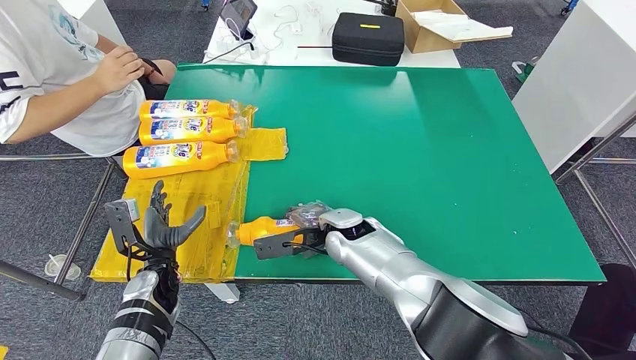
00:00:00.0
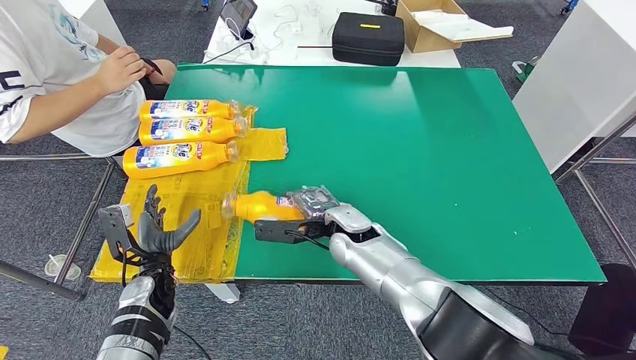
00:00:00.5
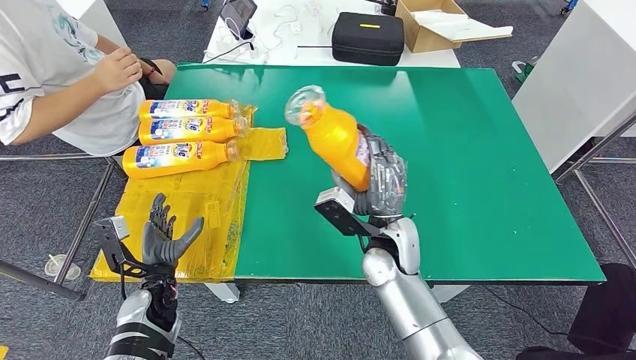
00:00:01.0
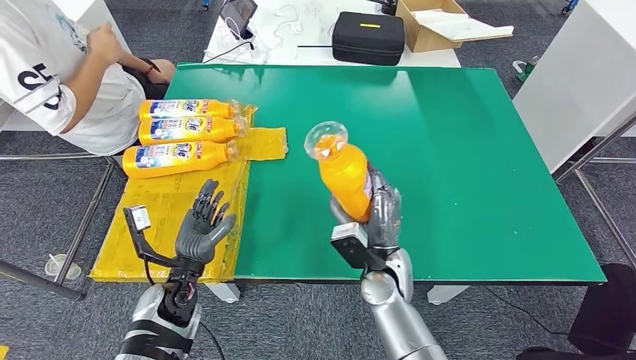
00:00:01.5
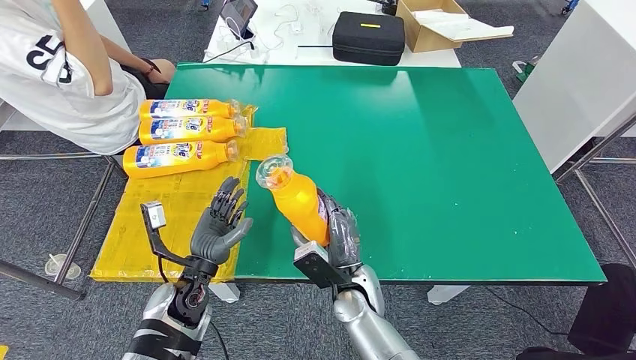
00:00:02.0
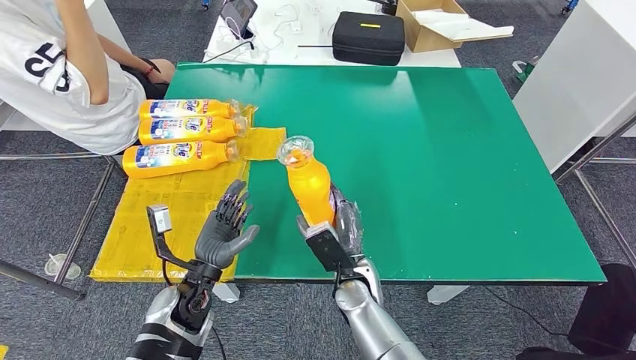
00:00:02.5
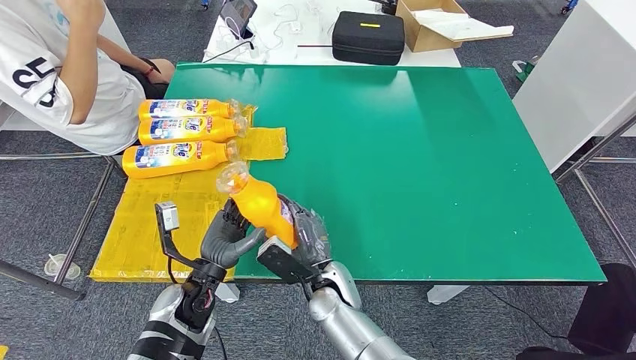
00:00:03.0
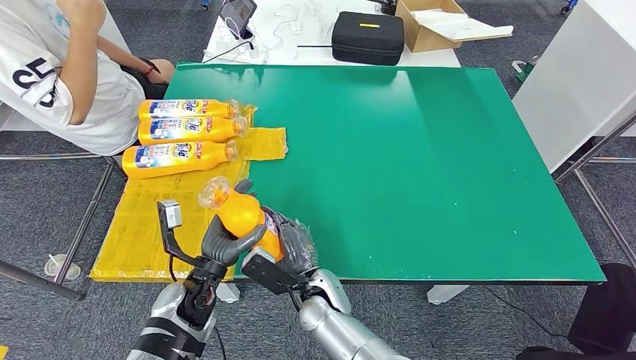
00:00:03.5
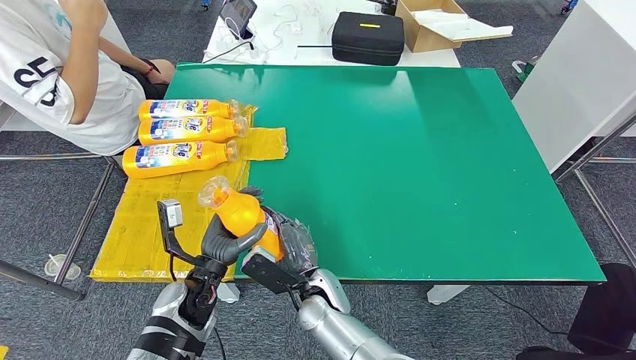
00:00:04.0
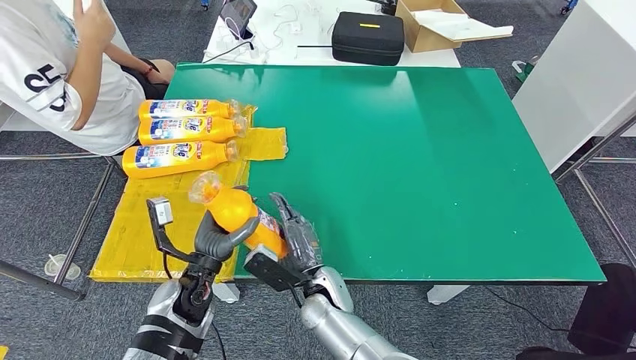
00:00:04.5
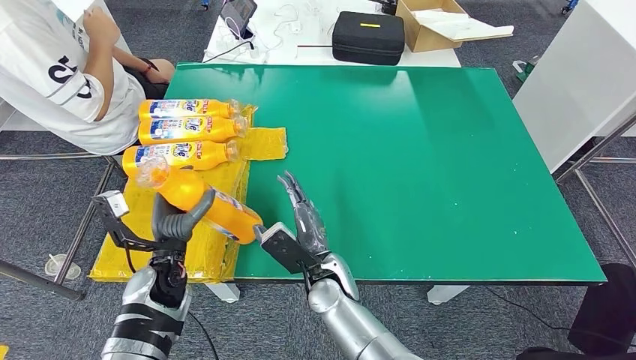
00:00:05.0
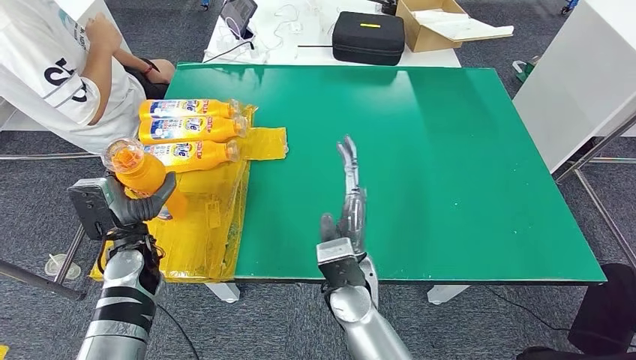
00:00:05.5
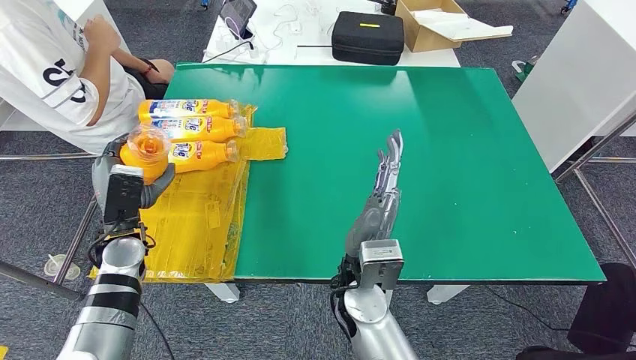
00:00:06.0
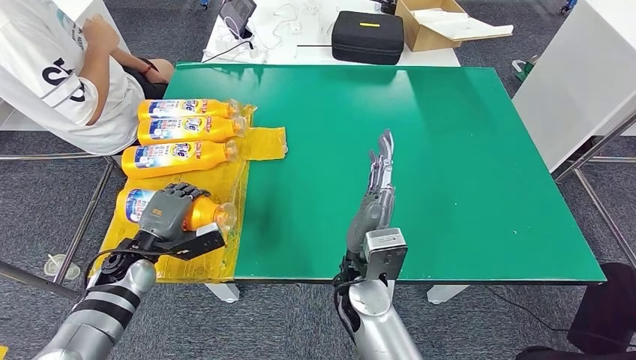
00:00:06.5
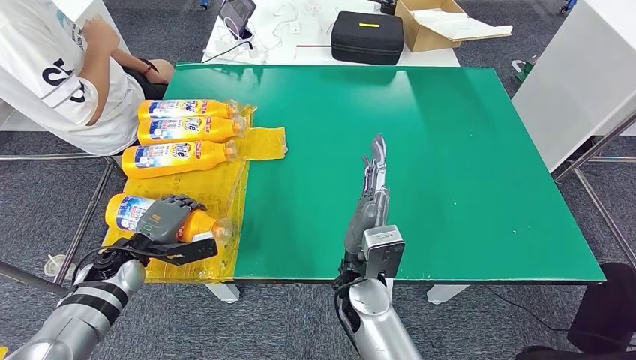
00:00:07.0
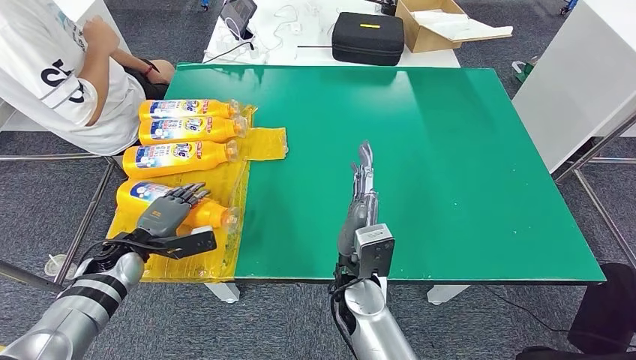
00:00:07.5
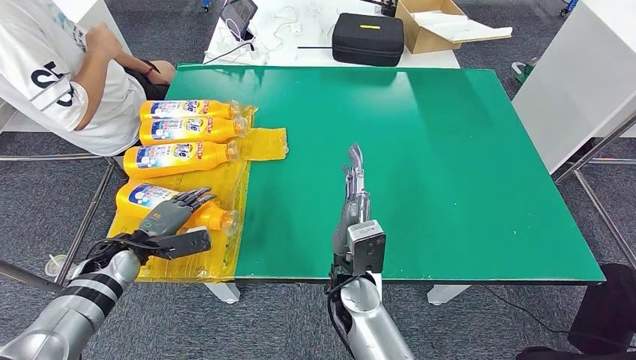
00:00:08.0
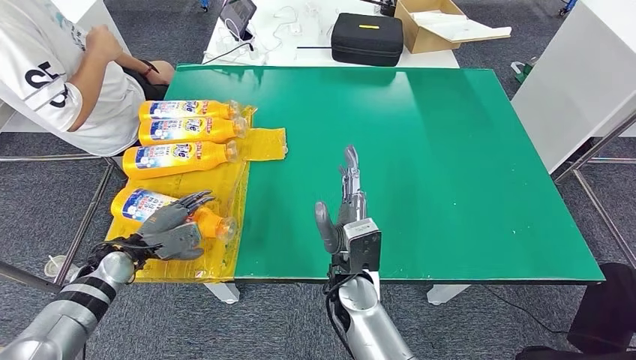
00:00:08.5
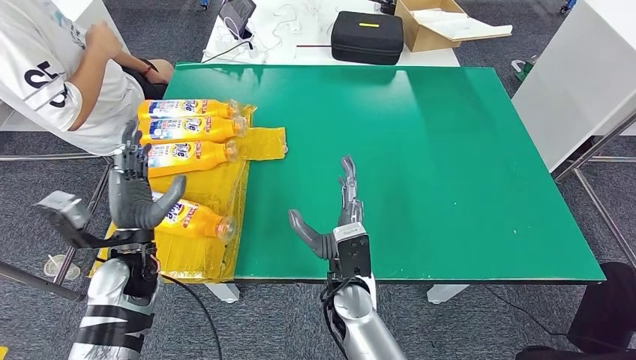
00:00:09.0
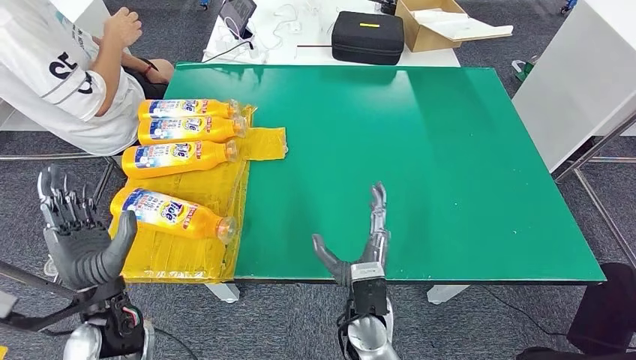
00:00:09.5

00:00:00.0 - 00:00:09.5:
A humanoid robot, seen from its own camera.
Step, 00:00:00.0 - 00:00:01.5: Pick up the fast-moving consumer goods bottle from the table.
Step, 00:00:02.5 - 00:00:09.5: Flip the fast-moving consumer goods bottle to the front side.
00:00:02.0 - 00:00:04.0: The right hand goes some 5 cm to the left.
00:00:04.0 - 00:00:05.5: The left hand shifts approximately 10 cm to the left and forward, while the right hand shifts approximately 10 cm upward.
00:00:05.5 - 00:00:07.5: The left hand travels to the left by some 10 cm.
00:00:07.5 - 00:00:09.5: The left hand shifts about 20 cm backward, to the right and upward; the right hand changes place by roughly 5 cm.
